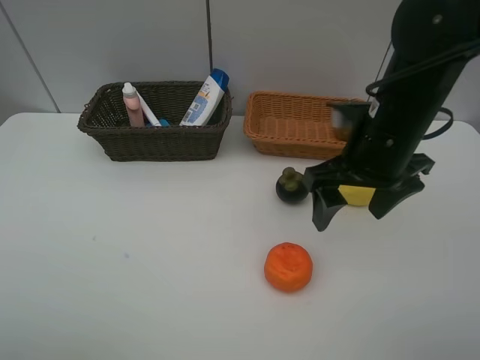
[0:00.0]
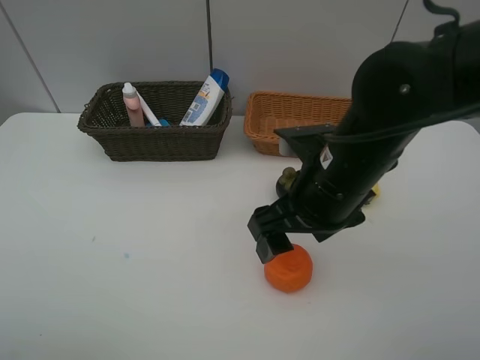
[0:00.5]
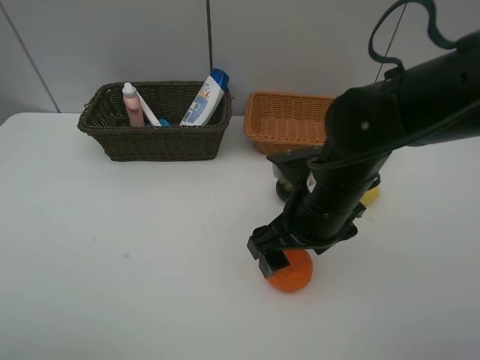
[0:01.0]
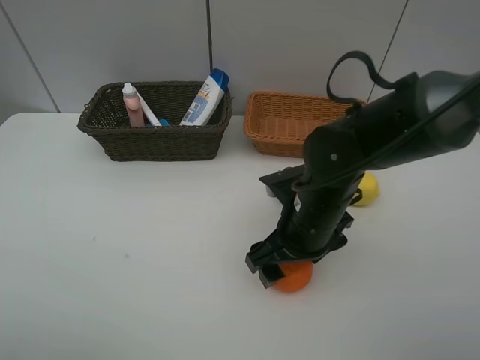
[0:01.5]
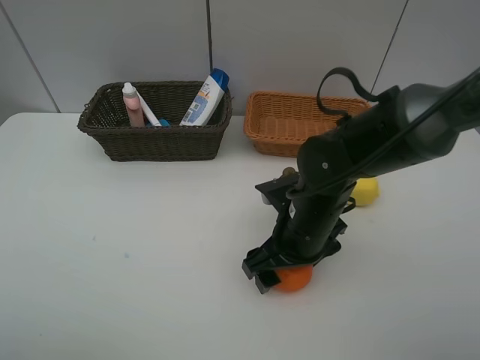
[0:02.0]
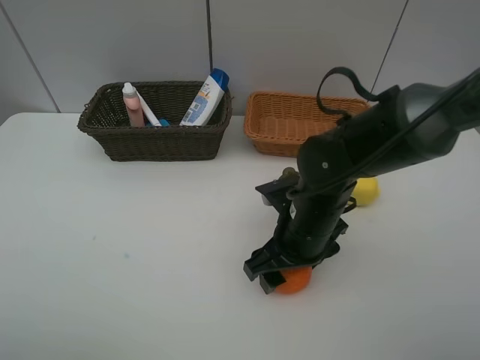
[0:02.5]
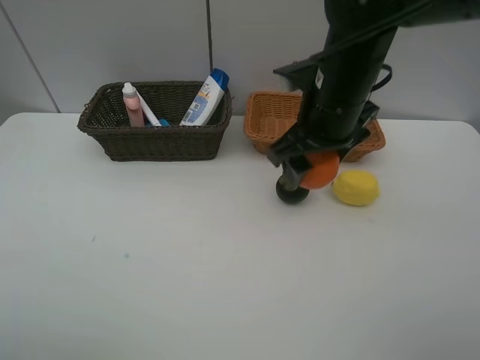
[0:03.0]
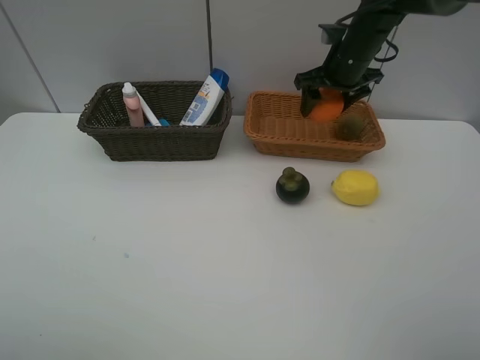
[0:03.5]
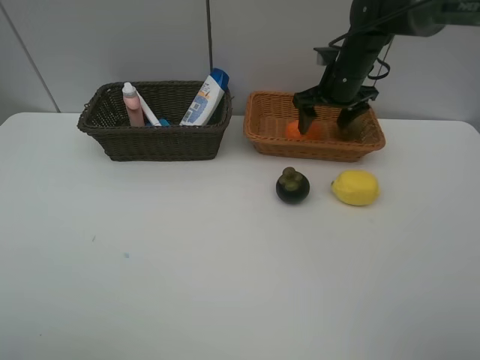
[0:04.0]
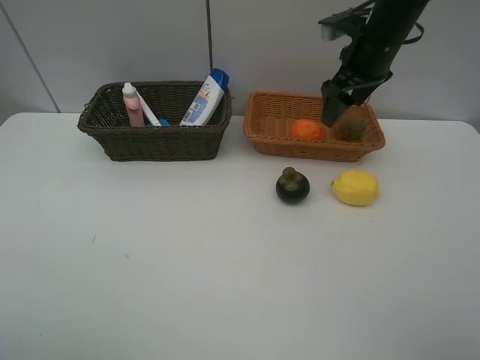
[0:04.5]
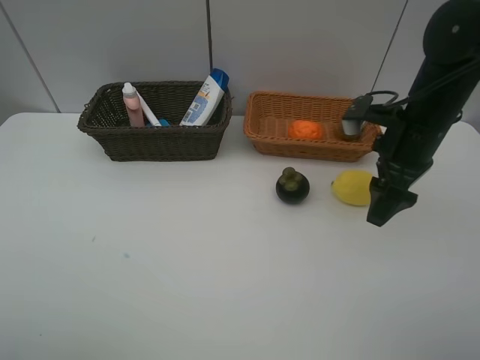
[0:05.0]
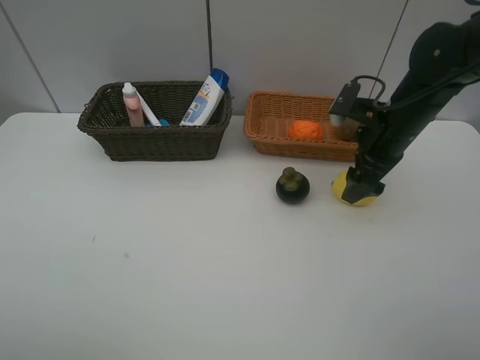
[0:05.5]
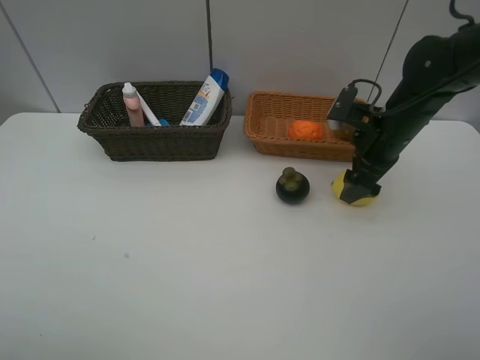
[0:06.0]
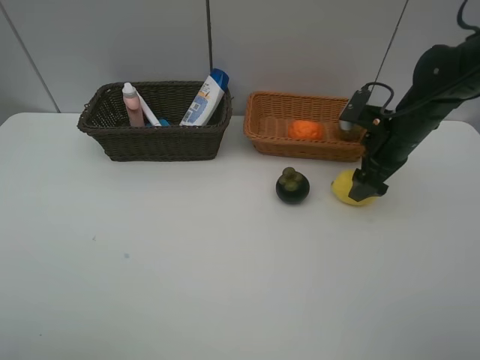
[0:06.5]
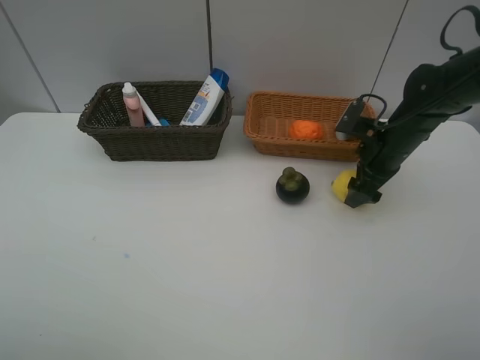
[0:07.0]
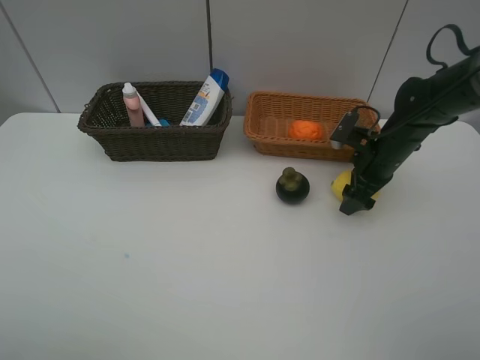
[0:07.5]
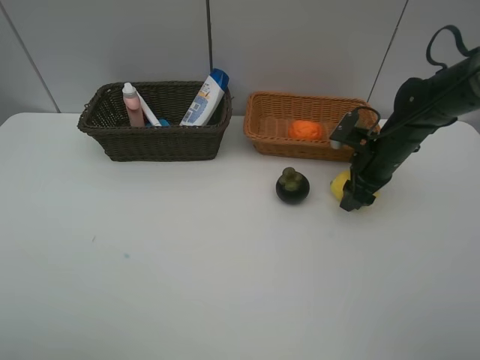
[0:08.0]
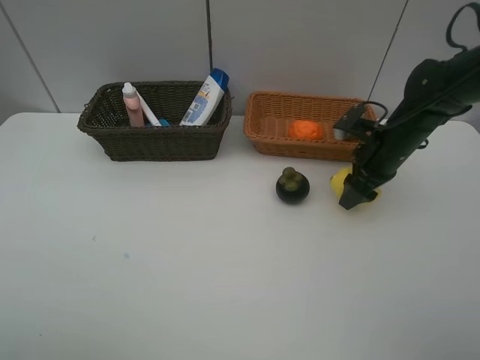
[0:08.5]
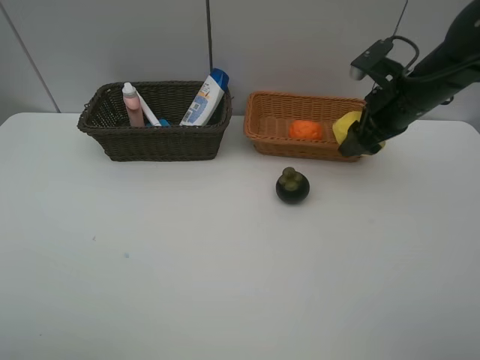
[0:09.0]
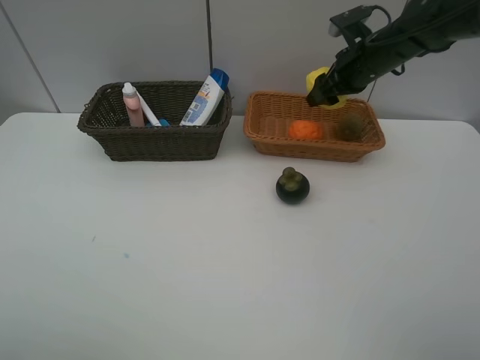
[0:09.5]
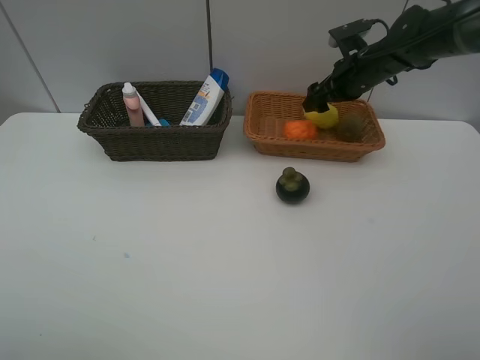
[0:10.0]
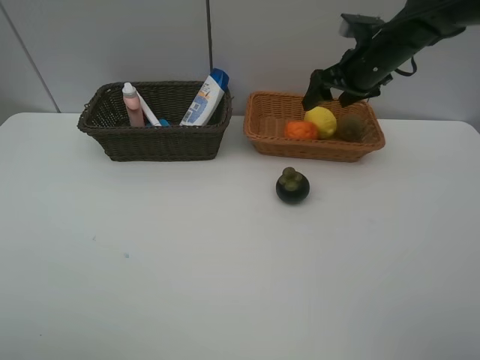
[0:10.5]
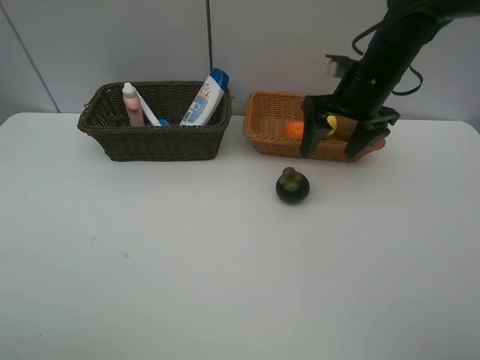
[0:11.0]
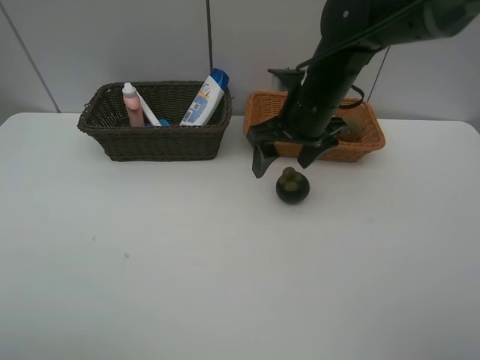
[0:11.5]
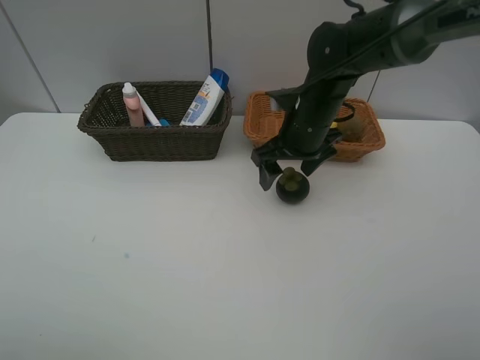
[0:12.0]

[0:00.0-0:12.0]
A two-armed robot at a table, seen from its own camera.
Task of the whole recording: Place multiple objects separately in different baskets.
Step, 0:00.0 to 0:02.5: Pick up the orange with right gripper.
Step, 0:03.0 to 0:04.0: Place the orange in the light basket with right gripper.
Step, 0:04.5 to 0:08.5: Pick up the lemon with right gripper.
Step, 0:09.0 to 0:10.0: Place the lemon in the light basket with right gripper.
0:00.0 to 0:02.0: The right gripper travels downward and to the left by roughly 15 cm.
0:02.0 to 0:04.0: The right gripper goes about 25 cm forward.
0:04.0 to 0:06.0: The right gripper travels backward by roughly 15 cm.
0:06.0 to 0:08.0: The right gripper travels downward by some 5 cm, and closes its fingers.
0:08.0 to 0:10.0: The right gripper goes some 15 cm forward and upward, and opens.
0:10.0 to 0:12.0: The right gripper heads backward and to the left, covering some 15 cm.

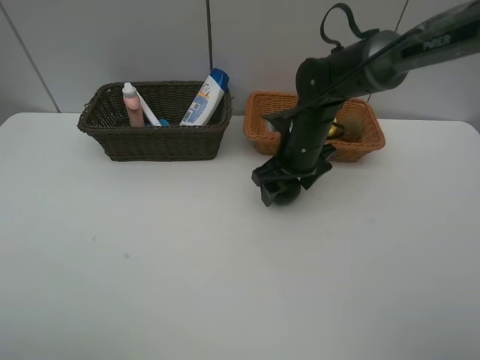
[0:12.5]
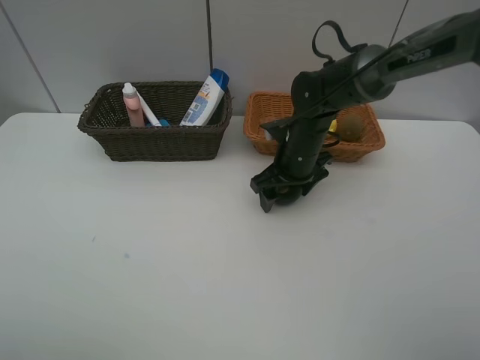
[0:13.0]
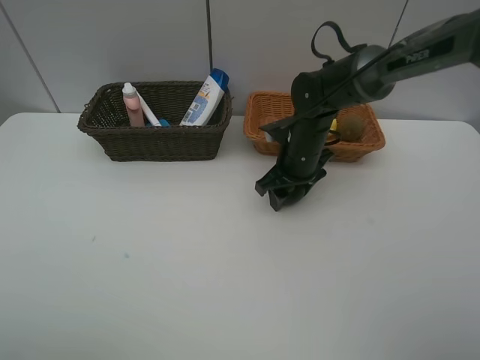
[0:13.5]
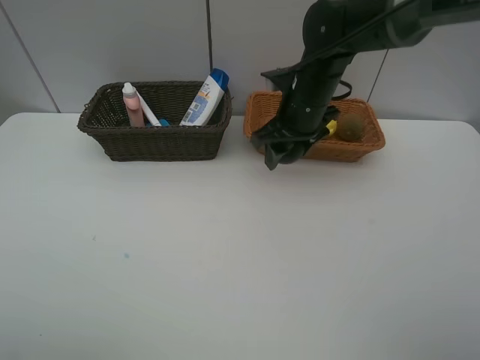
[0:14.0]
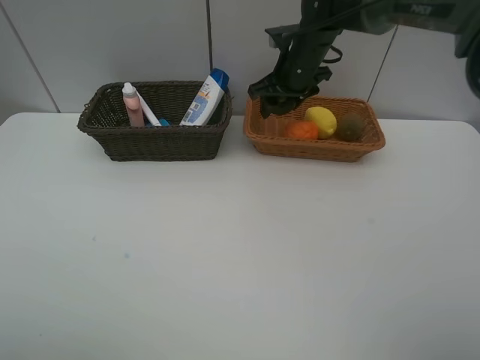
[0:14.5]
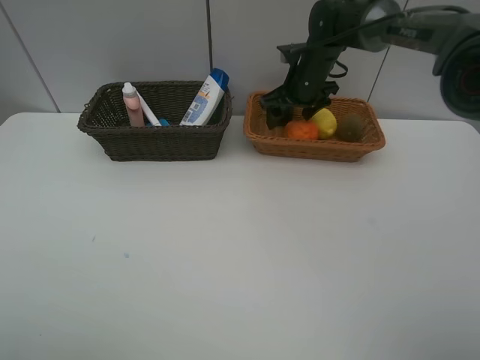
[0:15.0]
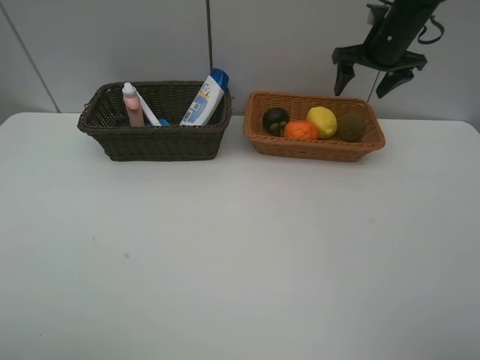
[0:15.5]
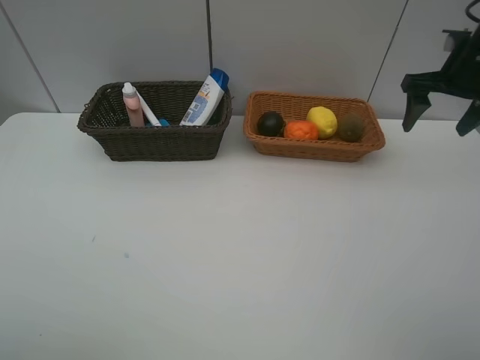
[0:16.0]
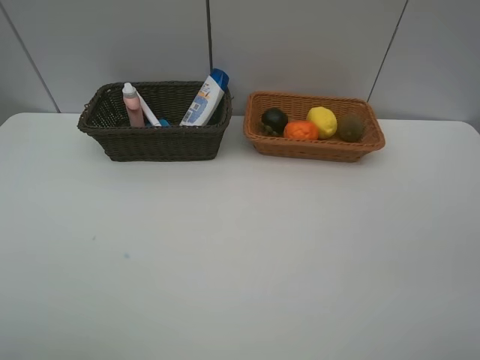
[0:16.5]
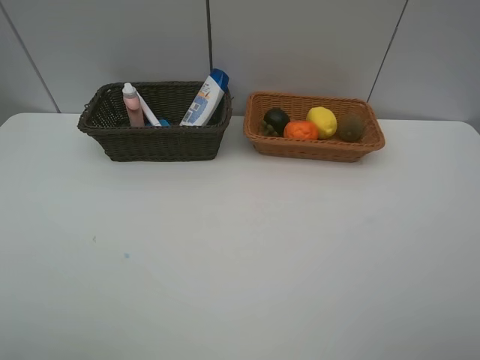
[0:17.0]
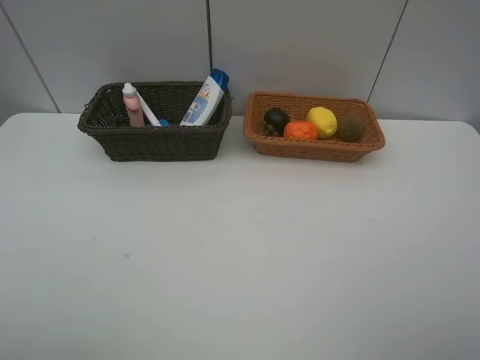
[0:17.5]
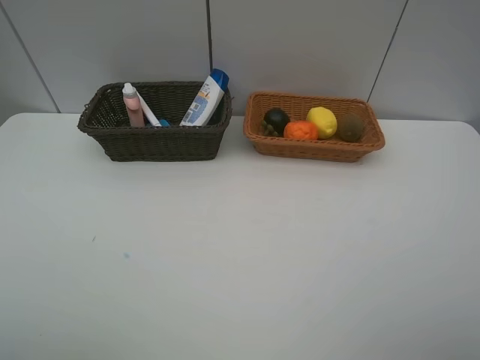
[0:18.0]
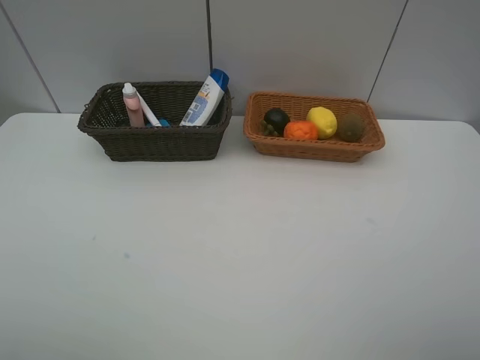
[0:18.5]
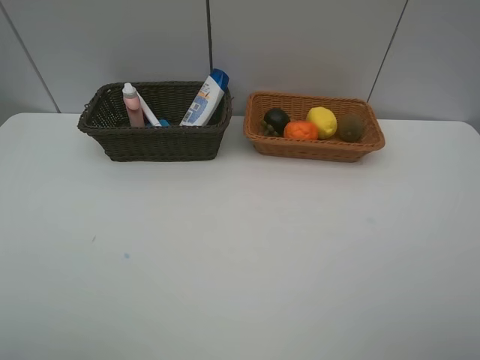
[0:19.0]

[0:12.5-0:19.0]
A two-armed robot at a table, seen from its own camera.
Task of the whole recording: Place multiple objects separately in different baskets.
Step, 0:14.0 to 0:15.0: Place the mangosteen in the light basket with right gripper.
0:12.5 to 0:14.5: The right gripper goes about 15 cm forward and upward, and closes its fingers.
0:14.5 to 0:17.0: The right gripper travels backward and to the right by some 50 cm, and opens.
